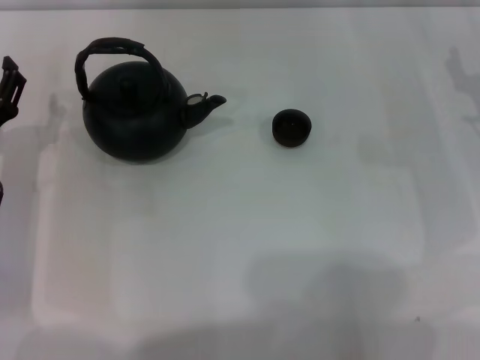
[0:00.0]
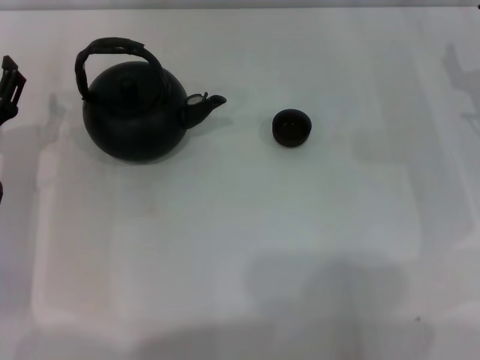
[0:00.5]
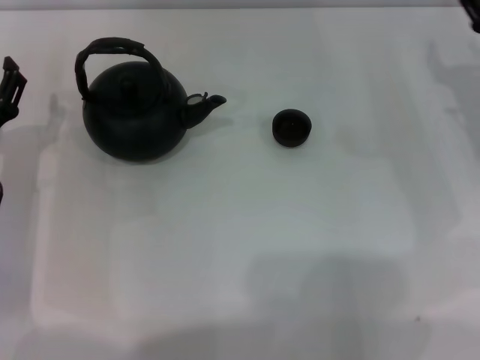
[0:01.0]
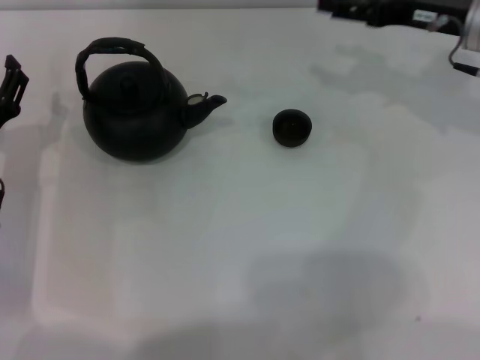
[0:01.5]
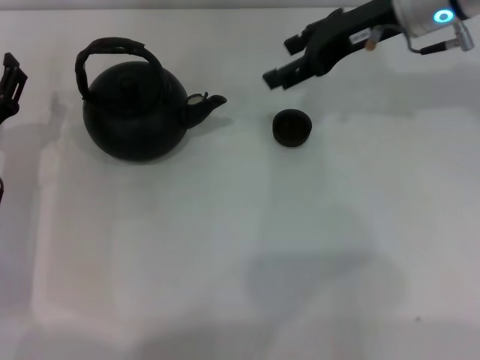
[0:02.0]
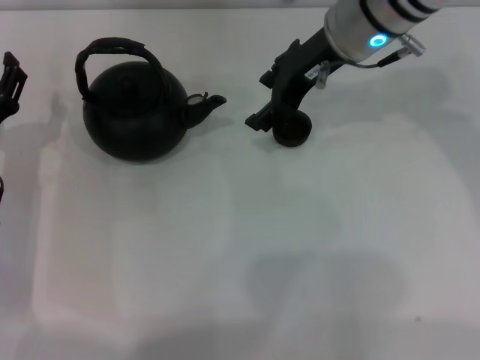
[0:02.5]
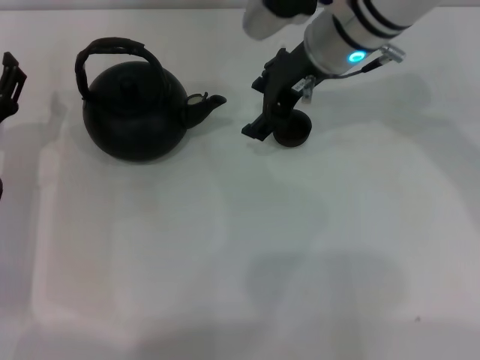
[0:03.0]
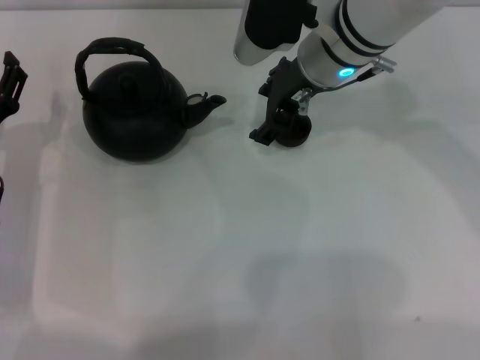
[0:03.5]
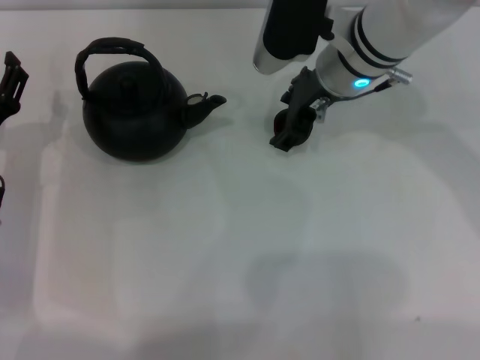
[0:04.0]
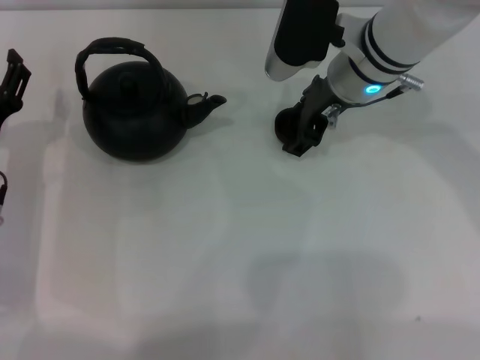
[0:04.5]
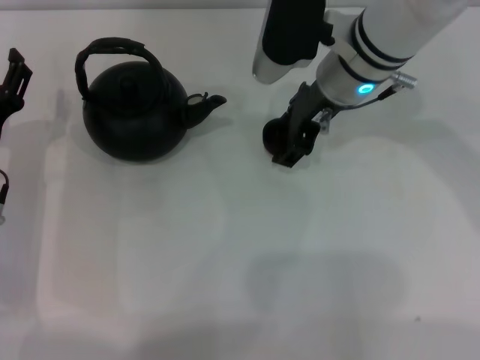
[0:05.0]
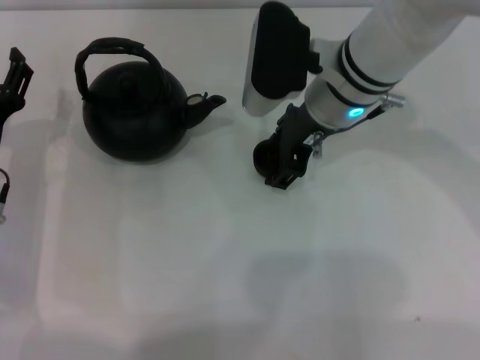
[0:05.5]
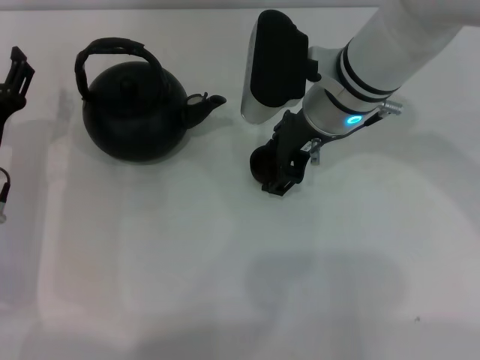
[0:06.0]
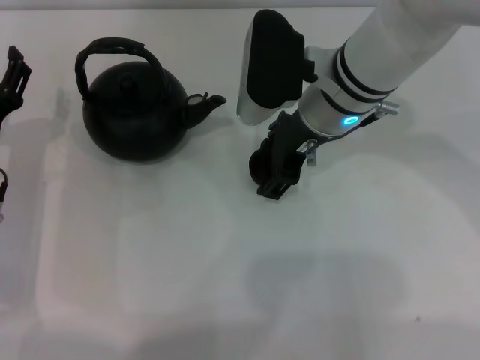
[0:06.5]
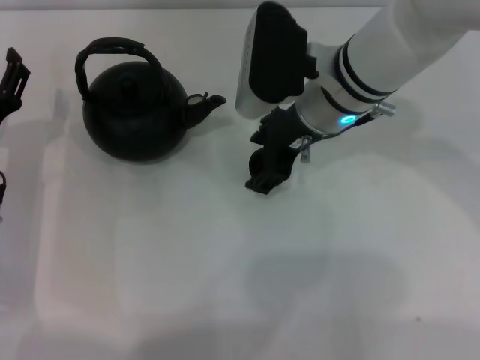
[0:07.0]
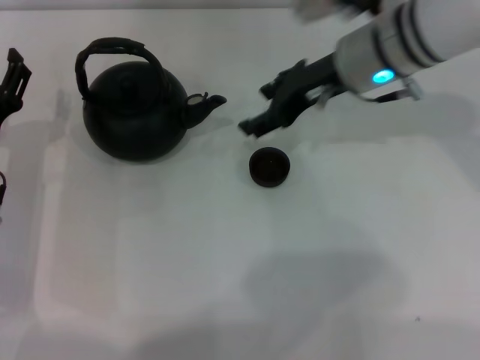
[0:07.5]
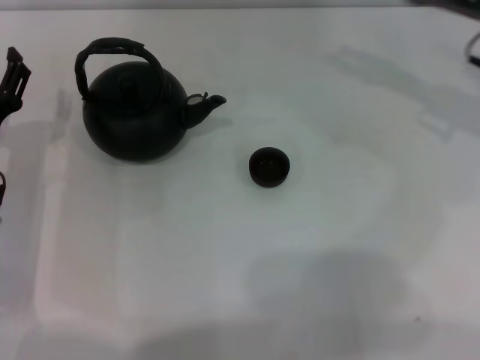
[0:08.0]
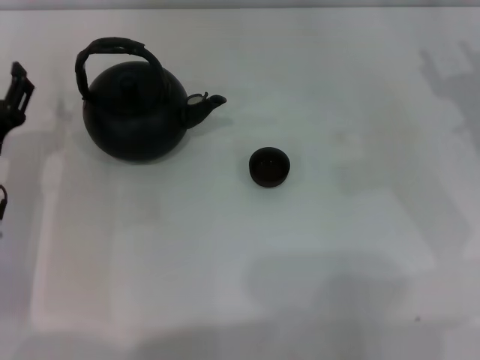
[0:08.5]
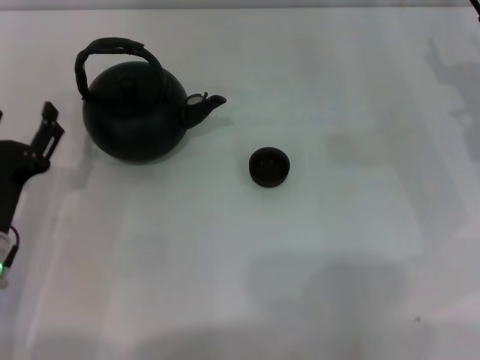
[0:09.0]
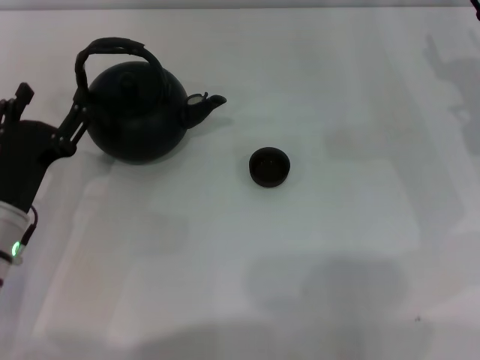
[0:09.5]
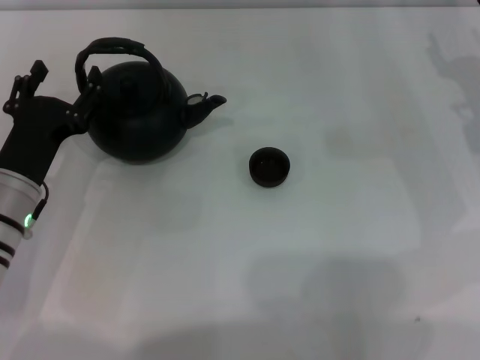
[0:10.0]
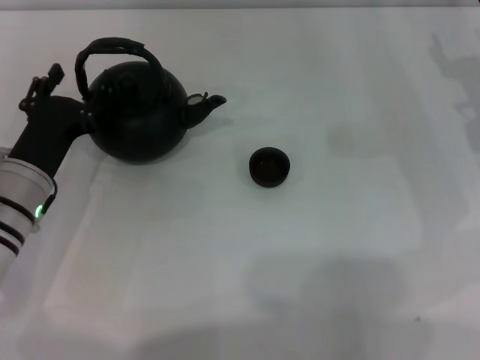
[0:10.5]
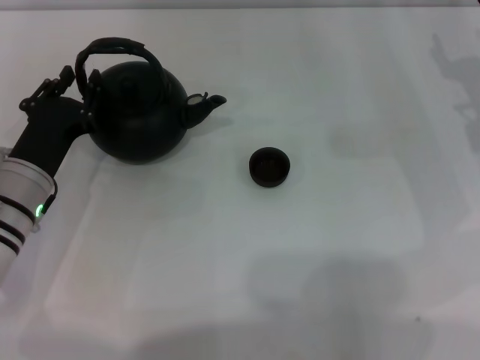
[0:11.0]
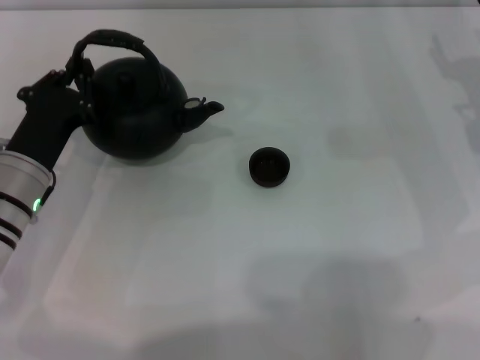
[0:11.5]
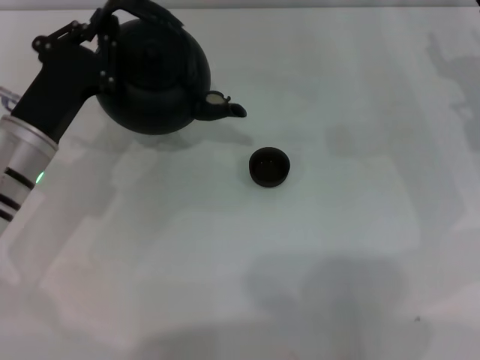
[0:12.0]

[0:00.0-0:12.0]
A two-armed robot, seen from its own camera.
Task of the whole recording: Grasp the handle of the teapot with one hand and pour tea into the teacup.
Step, 0:00.0 to 0:05.0: Pick up the teacup with the right gripper.
Step, 0:05.5 to 0:07.5: Place the teacup in the center of view with the right gripper.
Step, 0:08.0 to 0:11.5: Pick up the teapot with the left gripper.
0:00.0 to 0:02.0: The right gripper moves upward, to the left and forward, roughly 20 cm.
0:02.0 to 0:04.0: The right gripper moves to the left and downward, some 10 cm.
0:04.0 to 0:06.0: The right gripper closes its fingers.
0:06.0 to 0:08.0: The right gripper heads to the right, covering approximately 20 cm, and opens.
0:08.0 to 0:10.0: The right gripper travels downward by approximately 5 cm.
0:10.0 to 0:12.0: The left gripper shifts by roughly 5 cm, and closes its fingers.

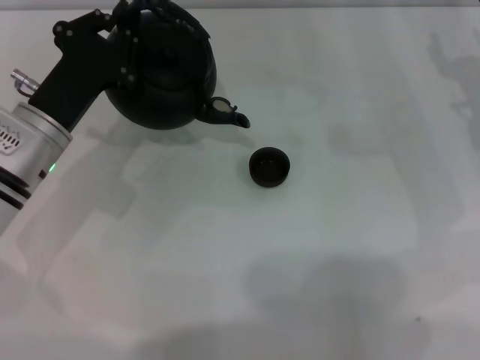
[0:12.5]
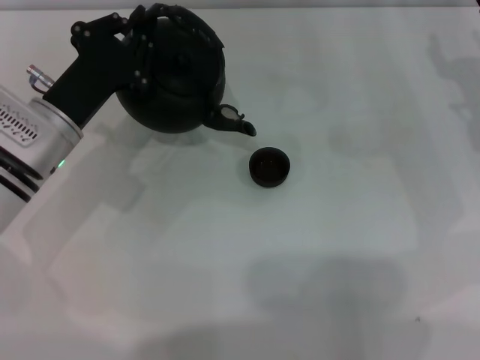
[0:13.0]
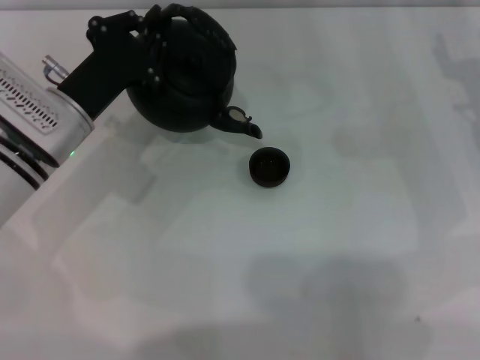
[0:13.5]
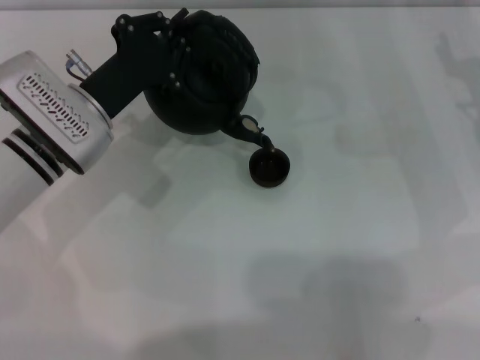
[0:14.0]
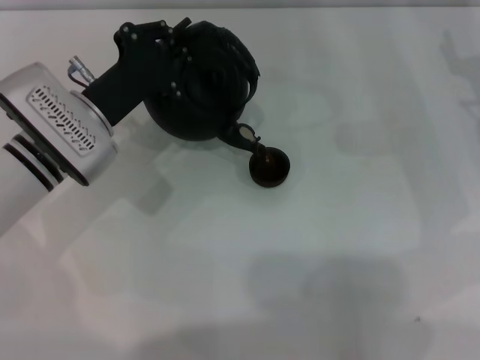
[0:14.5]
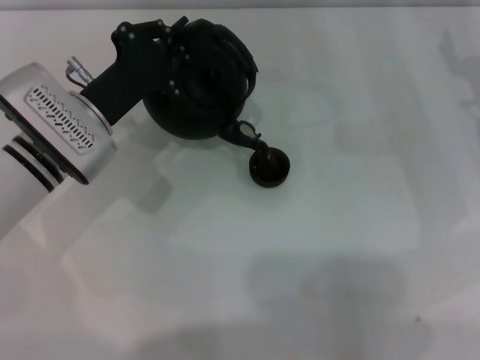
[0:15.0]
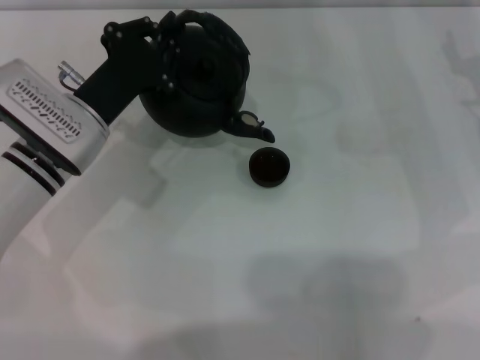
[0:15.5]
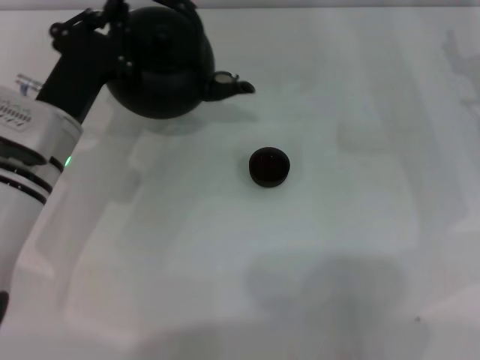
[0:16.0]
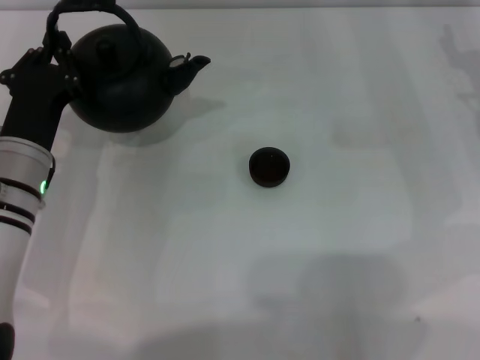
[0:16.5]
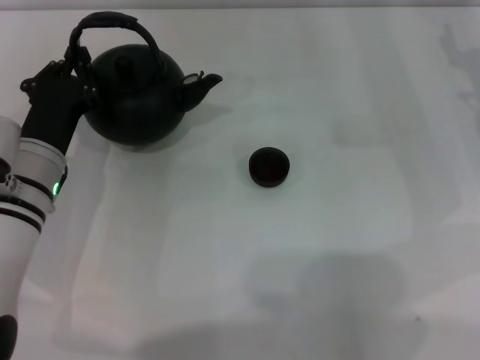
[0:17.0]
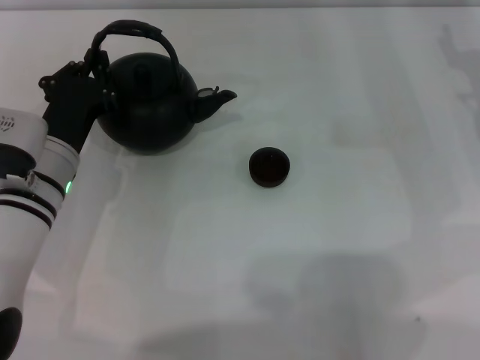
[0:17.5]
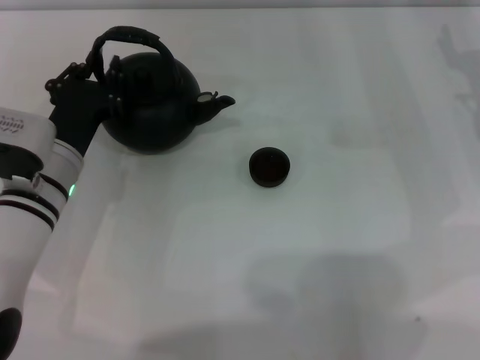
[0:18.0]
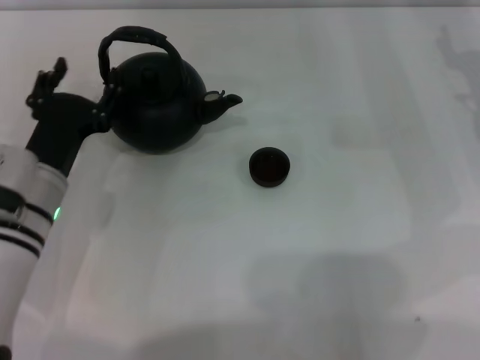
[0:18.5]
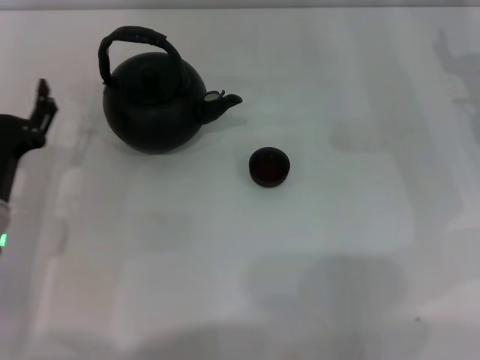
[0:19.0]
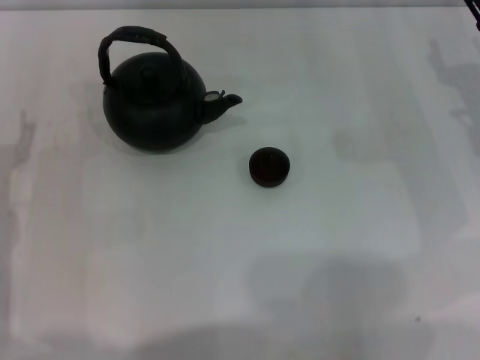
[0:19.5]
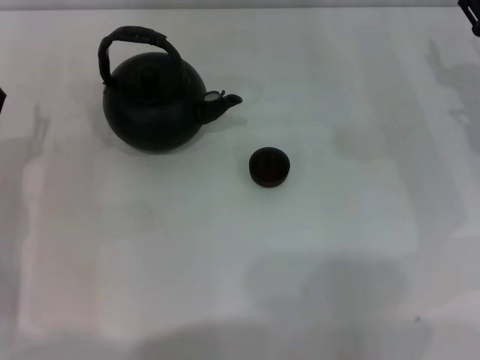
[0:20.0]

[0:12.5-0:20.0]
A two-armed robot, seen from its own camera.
Task of the whole recording: Grasp the handle of the teapot with one hand and pour tea into the teacup.
Step, 0:12.5 to 0:15.5: Pour tea into the teacup with the left gripper.
Step, 0:16.0 to 0:18.5: Put down the teapot with the left gripper.
0:12.5 to 0:14.5: There are only small adjustments of the grippers.
0:14.5 to 0:16.5: The left gripper moves about 5 cm.
0:16.5 to 0:18.0: There are only small adjustments of the grippers.
0:18.0 to 0:20.0: The left gripper heads to the left, covering about 10 cm, and opens.

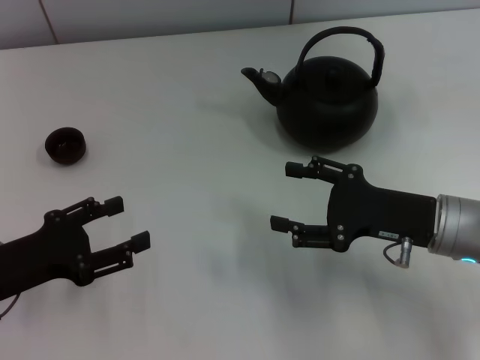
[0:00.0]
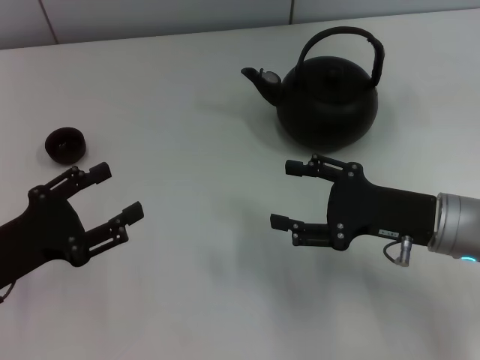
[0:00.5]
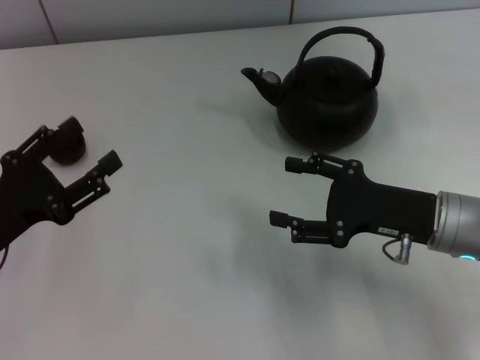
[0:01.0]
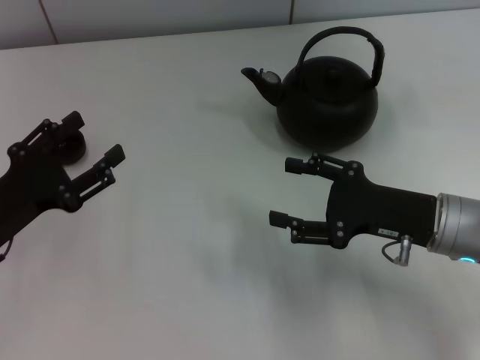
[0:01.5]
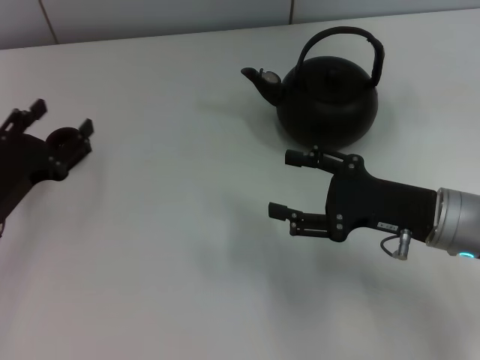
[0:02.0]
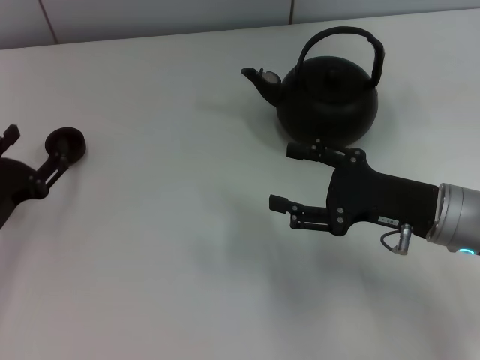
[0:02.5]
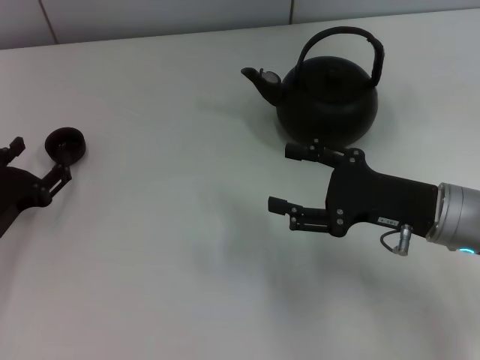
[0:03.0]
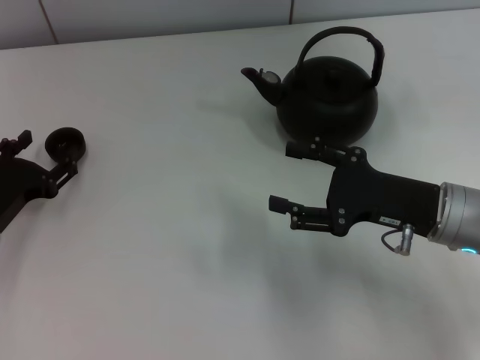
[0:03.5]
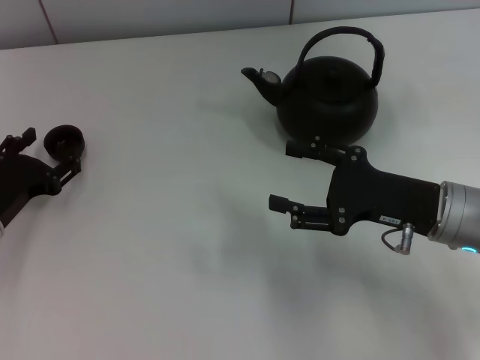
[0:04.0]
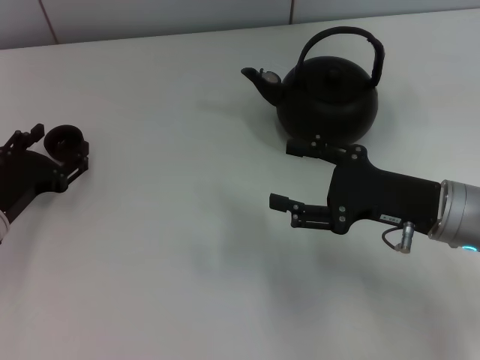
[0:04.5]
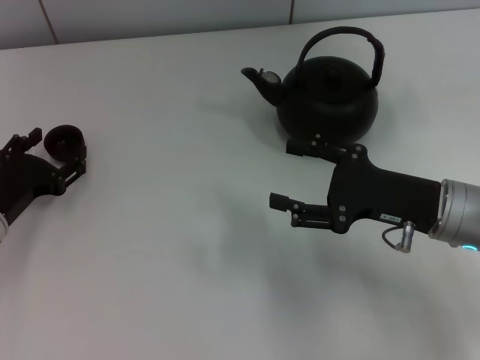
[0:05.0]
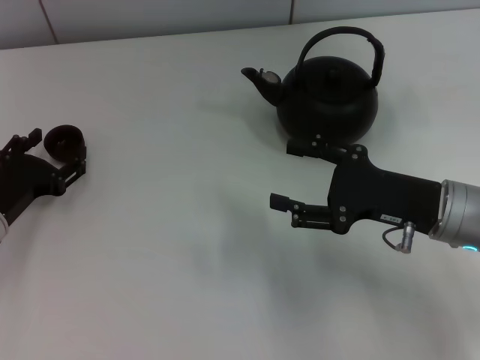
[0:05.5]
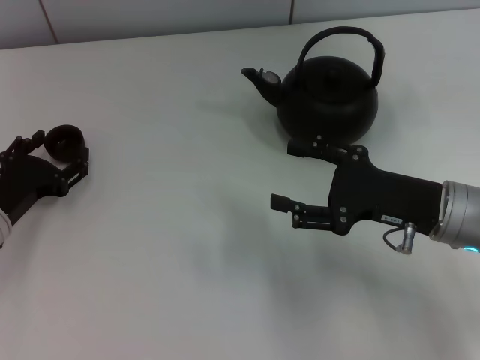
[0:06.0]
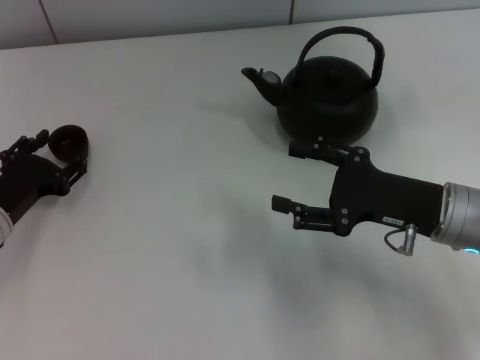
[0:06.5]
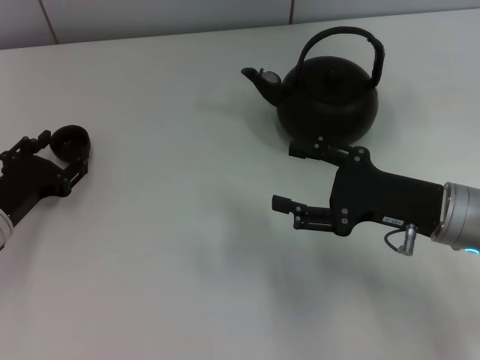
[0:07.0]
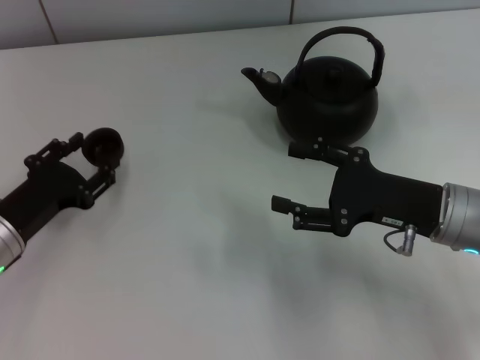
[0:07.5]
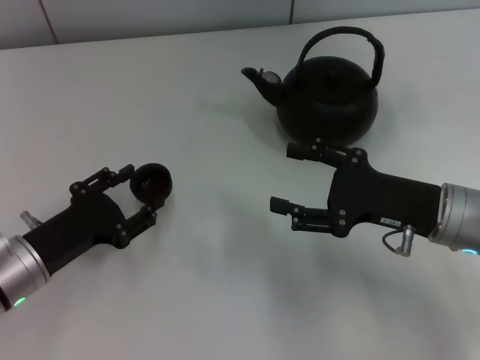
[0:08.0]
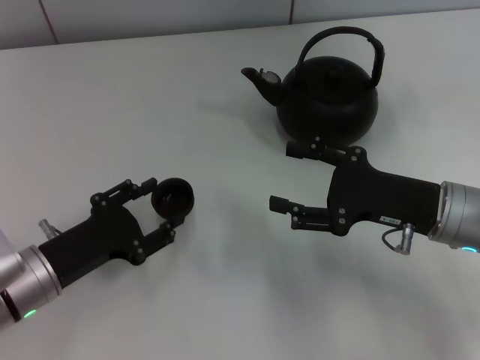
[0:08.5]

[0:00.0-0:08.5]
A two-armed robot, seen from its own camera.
Task of the whole recording: Grasp the handle of the teapot with one hand and pour tea into the teacup.
Step, 0:00.0 to 0:07.5: Pick up the teacup with the left gripper.
0:00.0 to 0:02.0: The left gripper moves some 5 cm.
0:02.0 to 0:04.0: The grippers make only small movements.
0:04.0 to 0:06.5: Neither gripper changes place.
0:06.5 to 0:08.5: The left gripper heads backward, covering roughly 5 cm, and closes.
